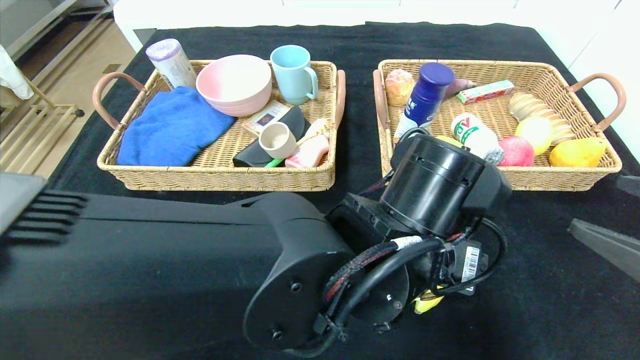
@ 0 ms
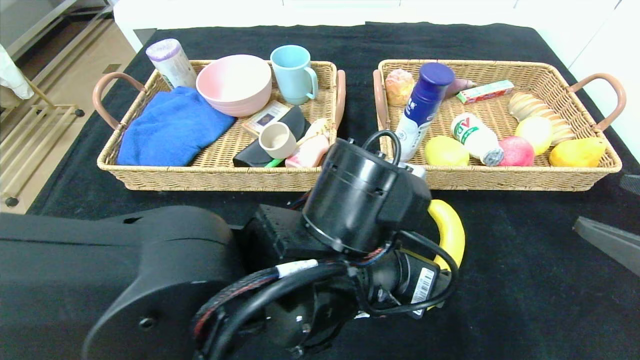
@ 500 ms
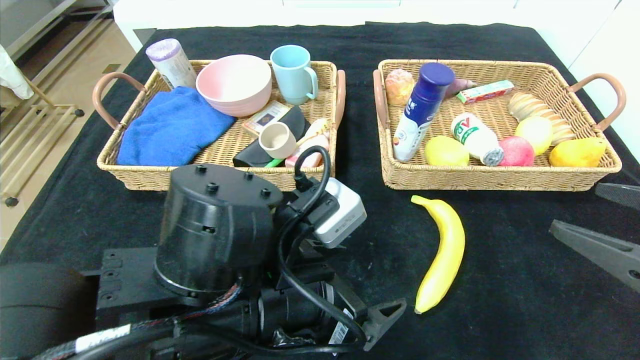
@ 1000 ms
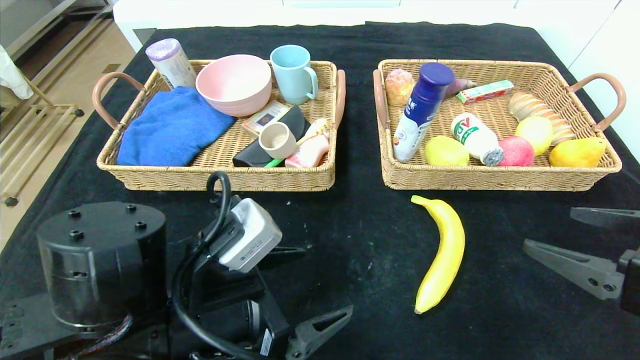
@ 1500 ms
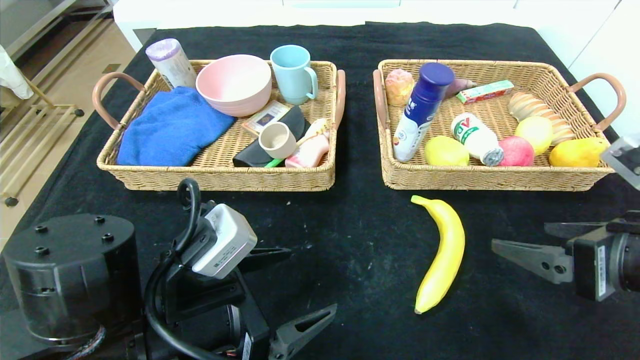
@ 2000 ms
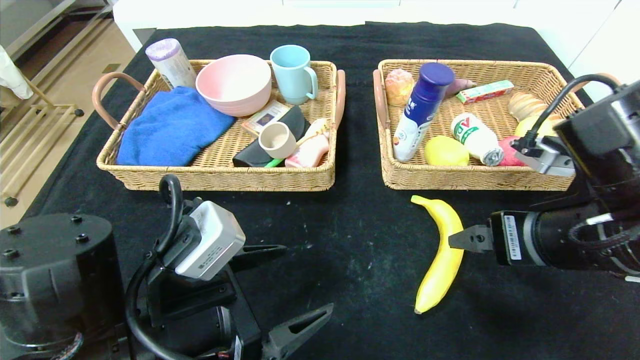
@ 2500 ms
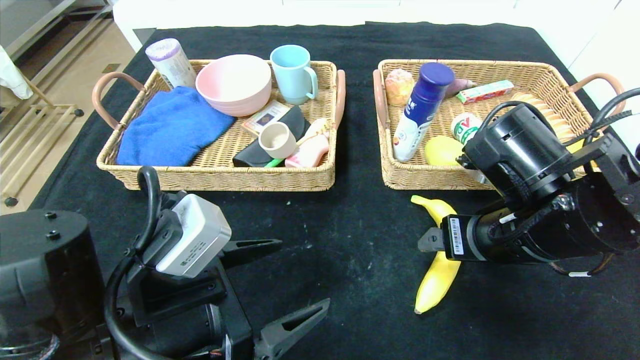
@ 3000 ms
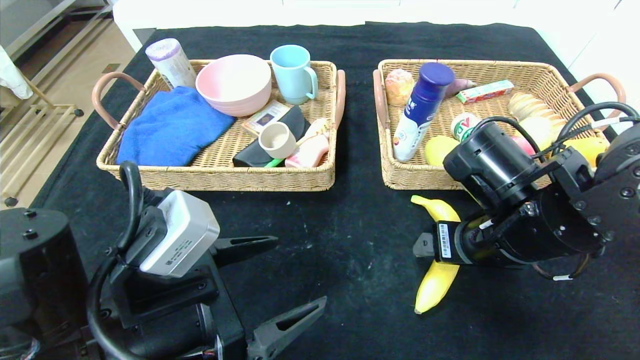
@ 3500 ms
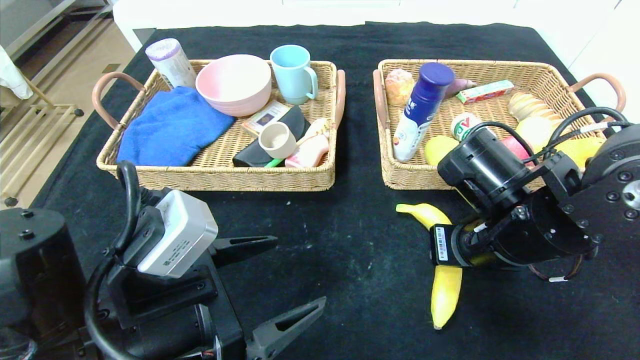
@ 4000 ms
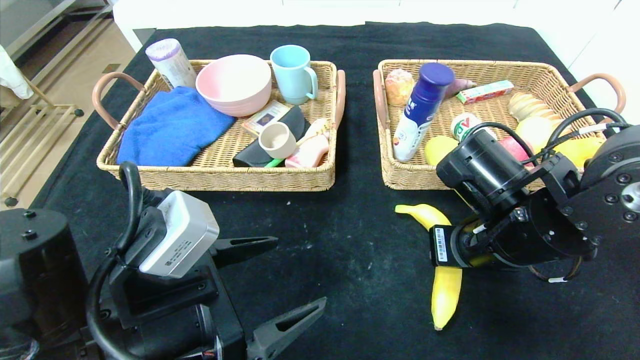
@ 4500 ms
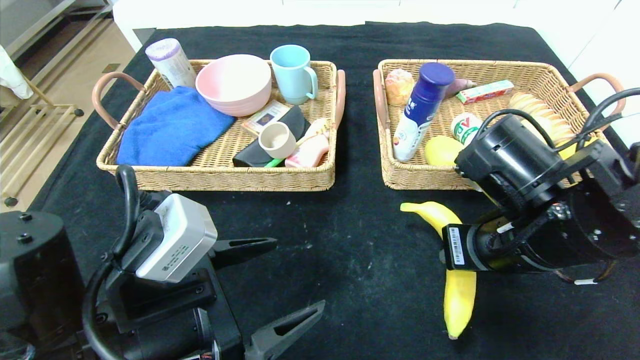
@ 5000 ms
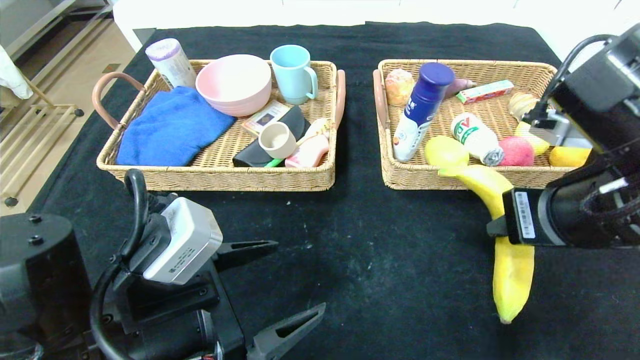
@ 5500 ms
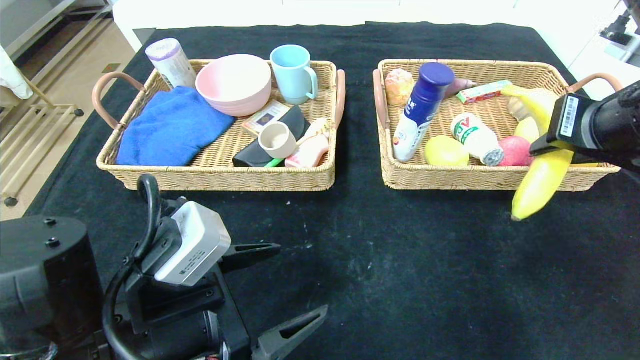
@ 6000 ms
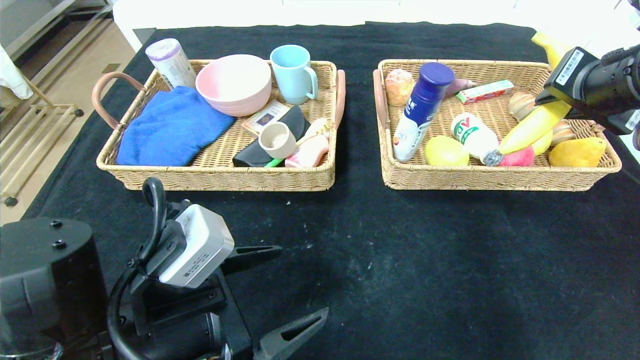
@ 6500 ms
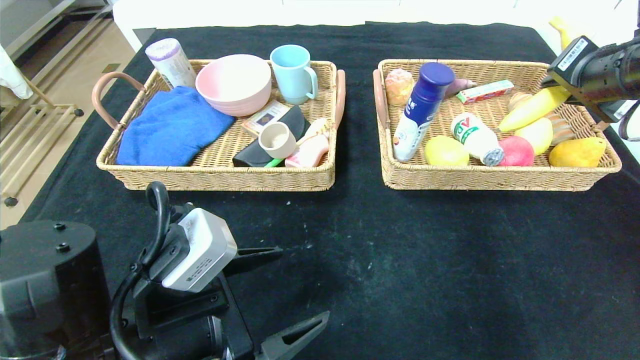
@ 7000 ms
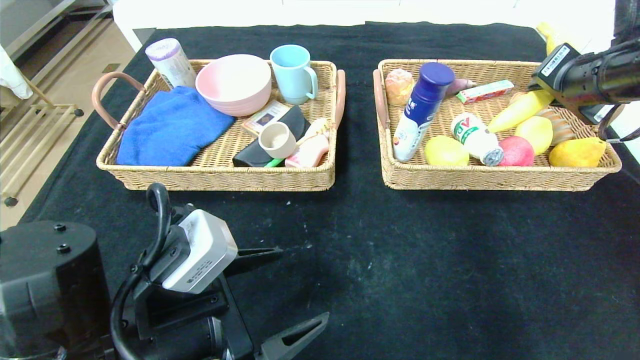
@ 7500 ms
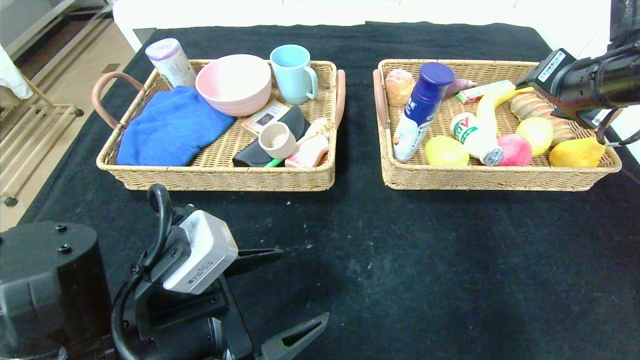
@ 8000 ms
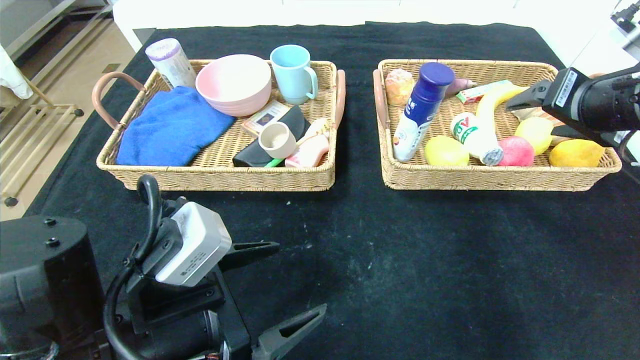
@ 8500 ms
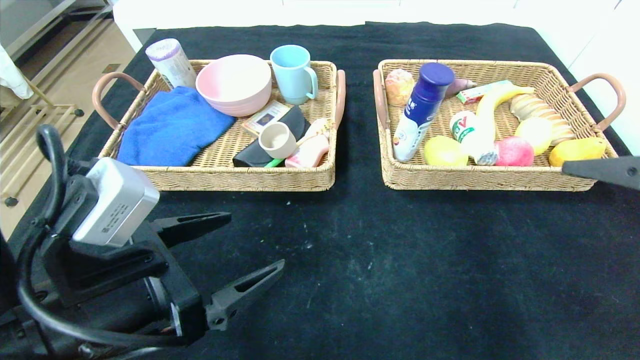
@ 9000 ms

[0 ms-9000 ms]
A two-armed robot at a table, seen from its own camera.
0 ms to 2000 ms: The right gripper ends up about 5 cm from where it was; the left gripper is displaced to the left by roughly 20 cm.
2000 ms to 4500 ms: The right gripper moves to the left and forward, roughly 15 cm, and closes.
4500 ms to 7000 ms: The right gripper is displaced upward, to the right and forward by approximately 20 cm.
7000 ms to 9000 ms: The right gripper travels backward by some 15 cm, and opens.

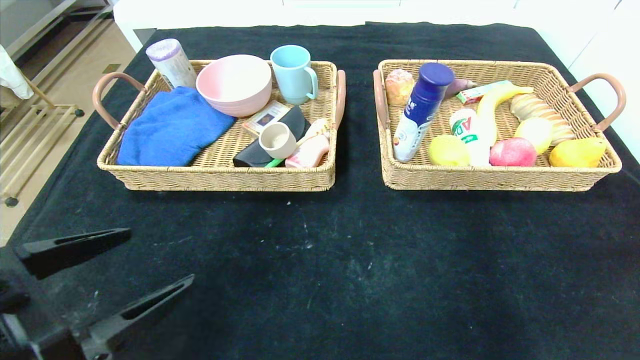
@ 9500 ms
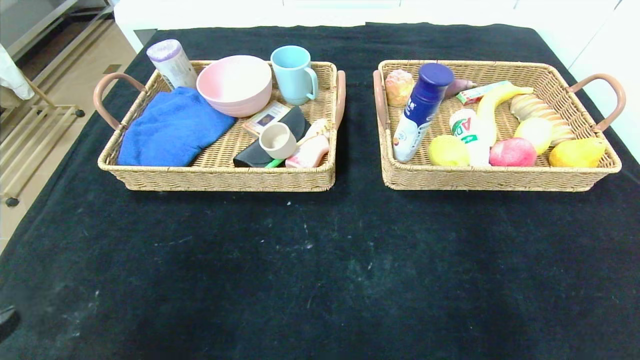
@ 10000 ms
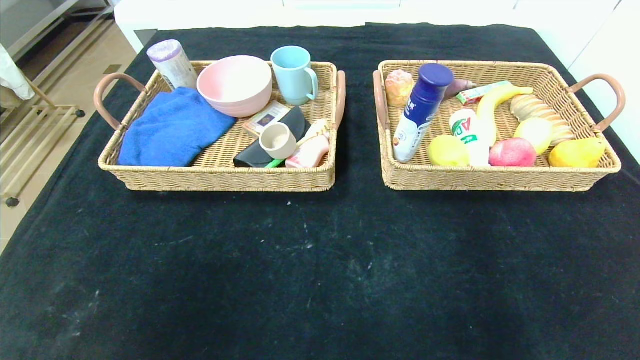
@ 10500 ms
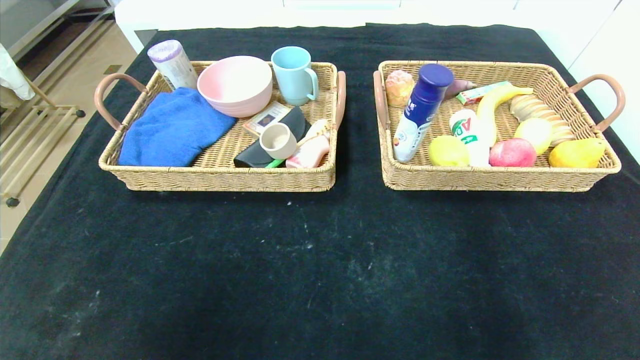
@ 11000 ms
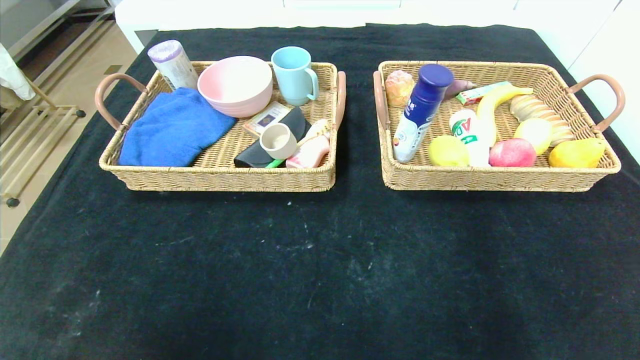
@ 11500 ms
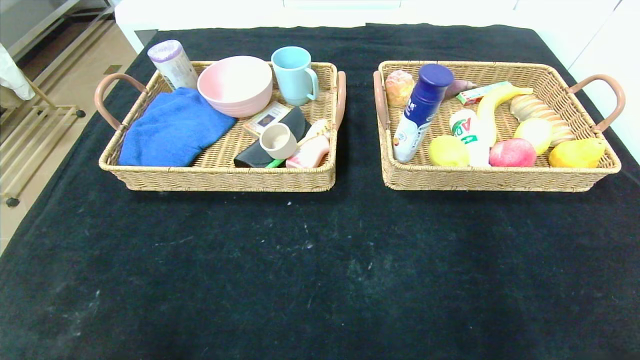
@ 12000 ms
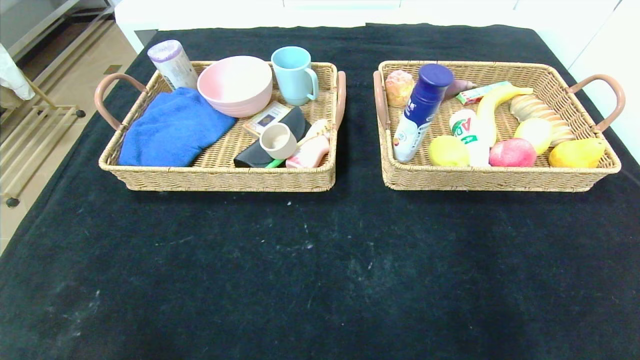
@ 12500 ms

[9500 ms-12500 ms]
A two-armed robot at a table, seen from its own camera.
9500 ms to 11000 ms: The left gripper is displaced backward by about 20 cm, while the right gripper moves backward and downward, some 20 cm.
